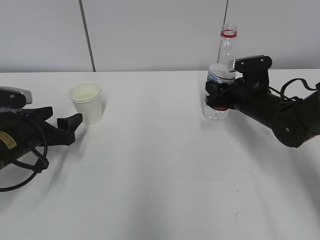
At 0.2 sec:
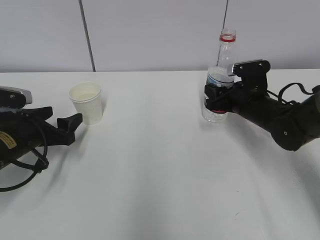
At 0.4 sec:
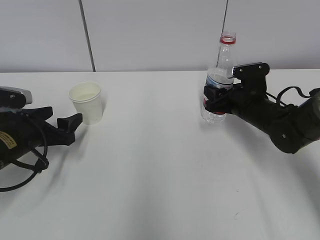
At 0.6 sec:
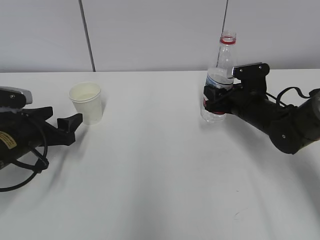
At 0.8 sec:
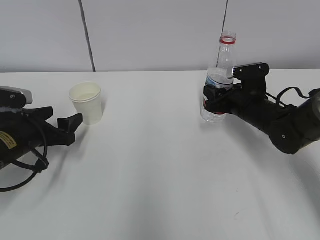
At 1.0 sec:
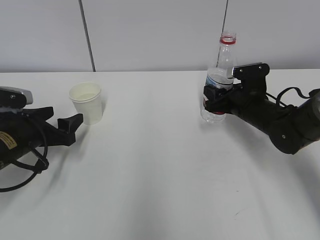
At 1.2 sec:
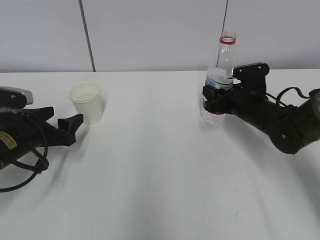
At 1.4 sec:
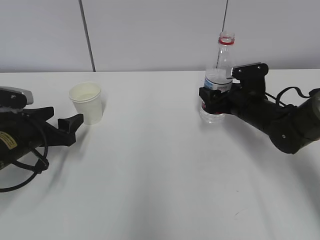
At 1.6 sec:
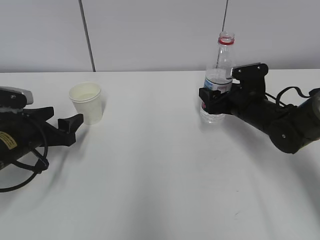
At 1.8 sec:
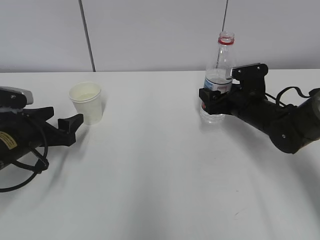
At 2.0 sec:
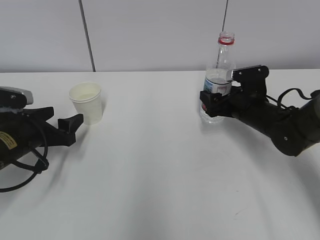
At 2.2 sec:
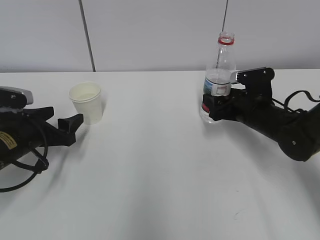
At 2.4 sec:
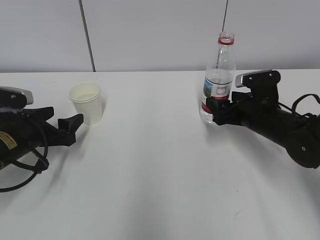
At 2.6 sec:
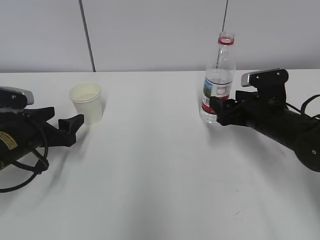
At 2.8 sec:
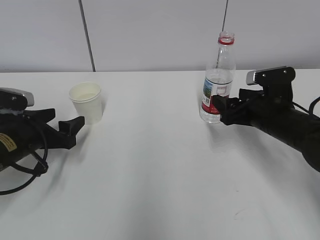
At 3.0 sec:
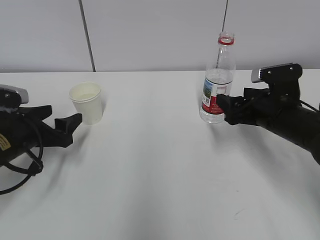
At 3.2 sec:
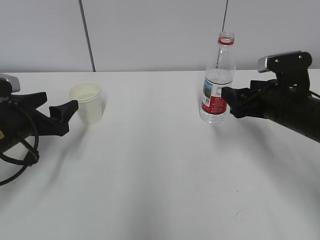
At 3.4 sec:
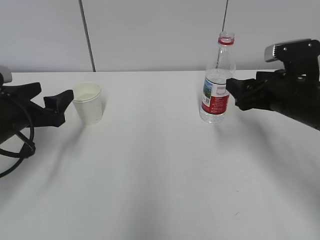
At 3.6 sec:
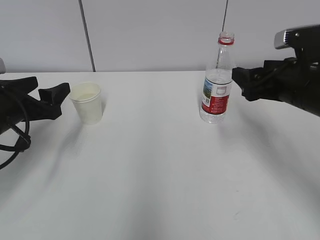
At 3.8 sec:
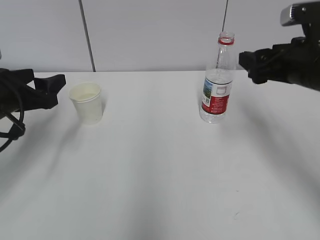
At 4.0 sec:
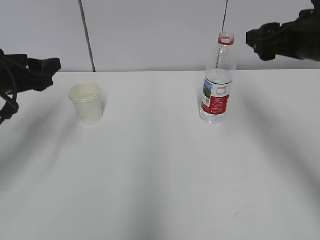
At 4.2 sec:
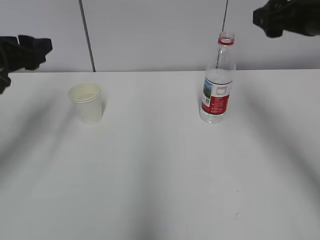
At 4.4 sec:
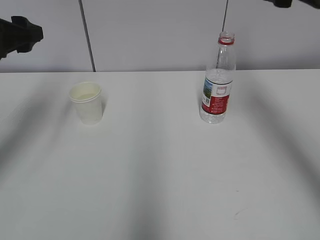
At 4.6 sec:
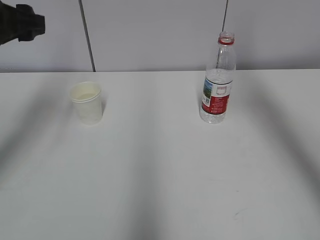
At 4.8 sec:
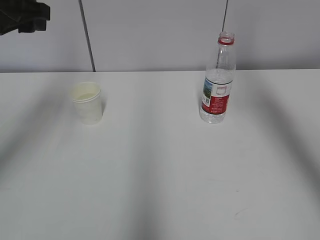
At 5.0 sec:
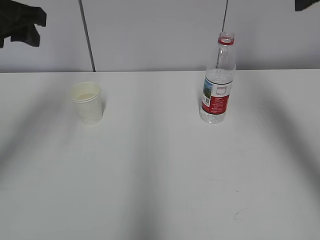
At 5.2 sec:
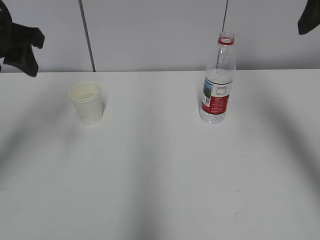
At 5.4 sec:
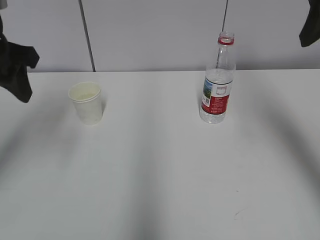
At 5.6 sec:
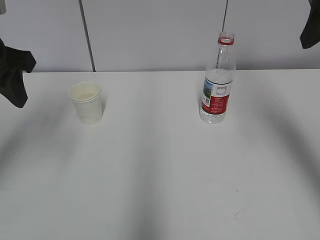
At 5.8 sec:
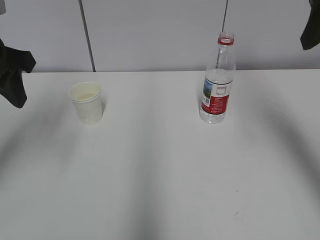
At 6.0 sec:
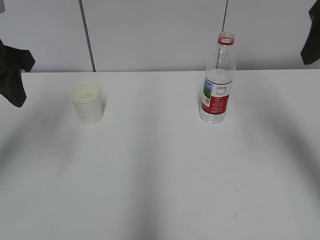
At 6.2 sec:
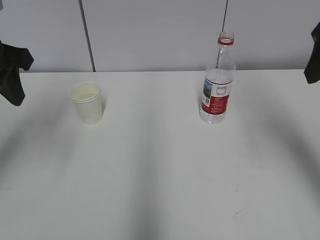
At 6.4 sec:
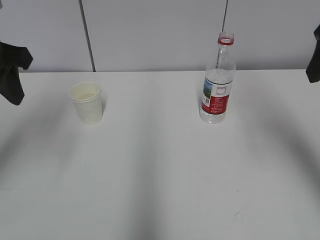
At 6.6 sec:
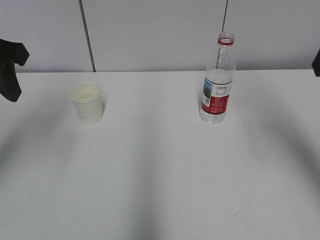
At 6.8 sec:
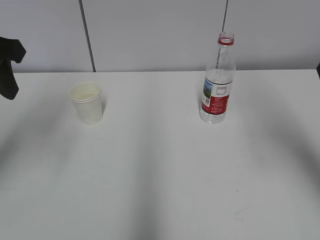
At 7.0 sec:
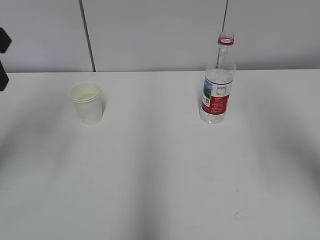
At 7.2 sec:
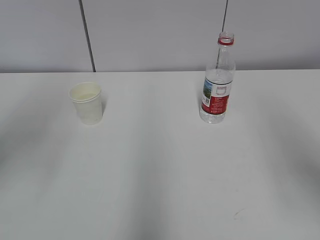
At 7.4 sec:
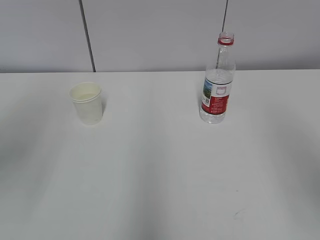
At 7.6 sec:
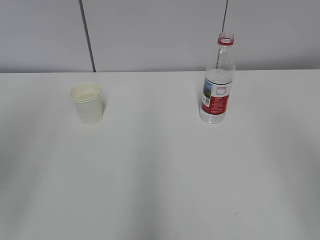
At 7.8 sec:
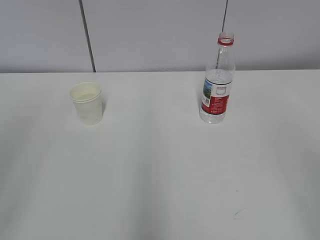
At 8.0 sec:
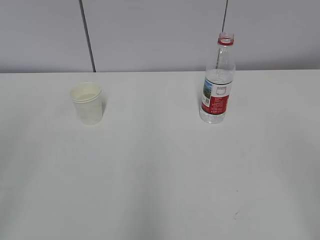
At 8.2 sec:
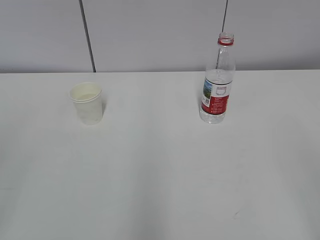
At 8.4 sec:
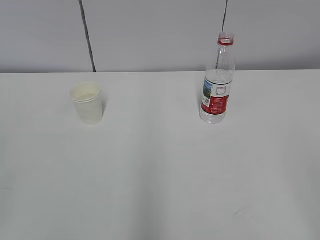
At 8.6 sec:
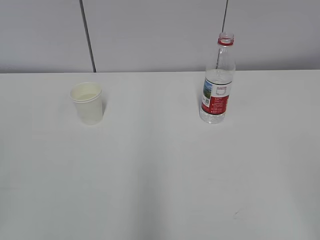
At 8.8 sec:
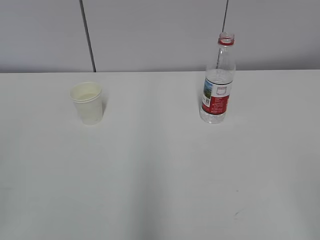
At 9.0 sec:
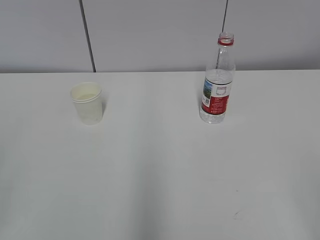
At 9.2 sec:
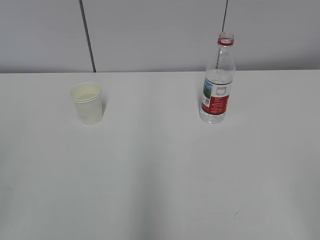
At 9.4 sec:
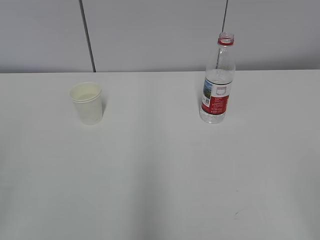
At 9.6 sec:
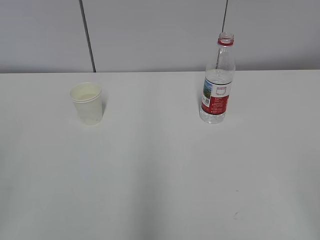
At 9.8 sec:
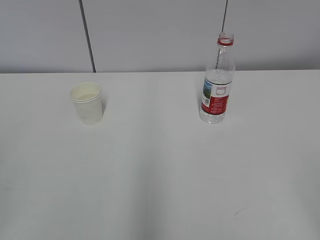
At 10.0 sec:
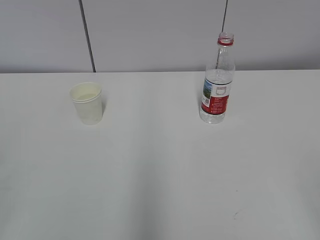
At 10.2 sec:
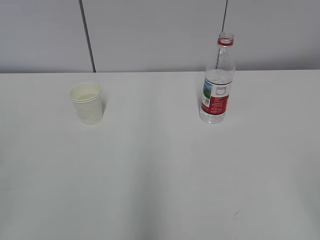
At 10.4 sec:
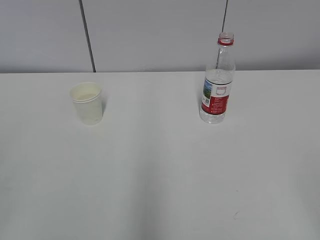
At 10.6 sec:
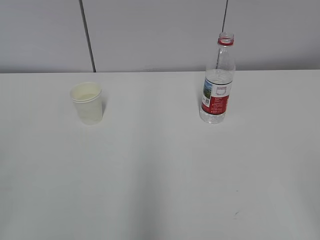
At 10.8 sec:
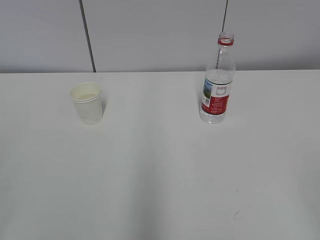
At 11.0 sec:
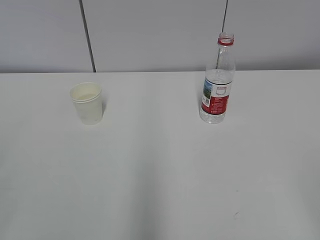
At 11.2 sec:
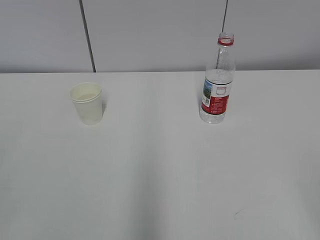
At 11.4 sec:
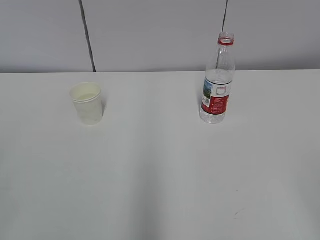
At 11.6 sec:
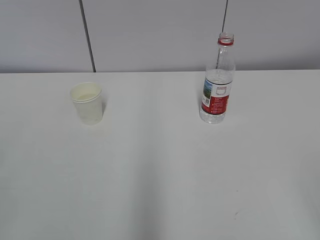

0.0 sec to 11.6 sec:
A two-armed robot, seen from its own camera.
0.0 sec to 1.4 sec: The right gripper opens up.
1.4 sec to 2.8 sec: The right gripper moves backward, roughly 5 cm.
2.8 sec to 4.4 sec: Both grippers travel together upward, about 20 cm.
4.4 sec to 5.8 sec: The right gripper goes some 5 cm backward. Meanwhile the left gripper changes place by some 5 cm.
5.8 sec to 7.2 sec: The right gripper travels backward by approximately 15 cm. The left gripper moves backward and upward, roughly 10 cm.
7.2 sec to 8.8 sec: The right gripper moves backward and downward, some 20 cm; the left gripper shifts some 25 cm backward.
10.2 sec to 11.6 sec: Neither gripper changes place.
